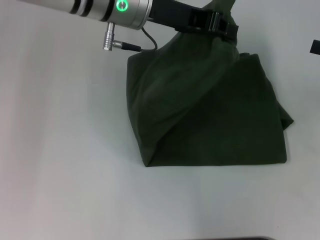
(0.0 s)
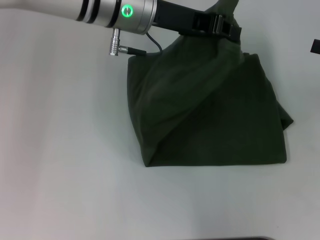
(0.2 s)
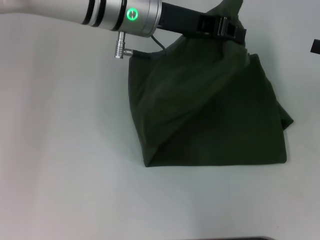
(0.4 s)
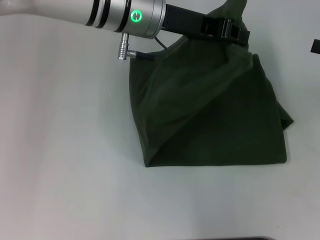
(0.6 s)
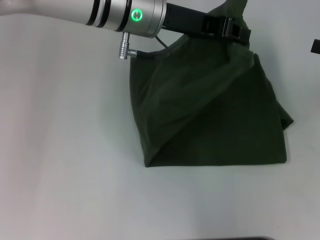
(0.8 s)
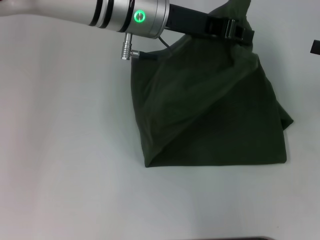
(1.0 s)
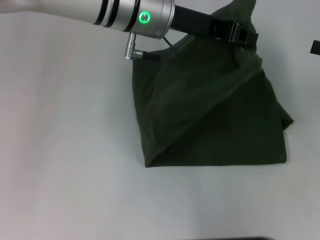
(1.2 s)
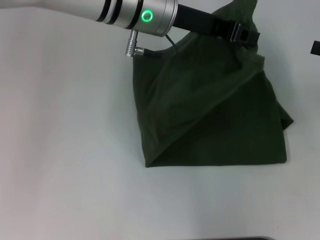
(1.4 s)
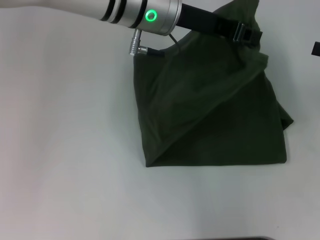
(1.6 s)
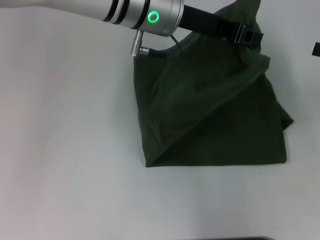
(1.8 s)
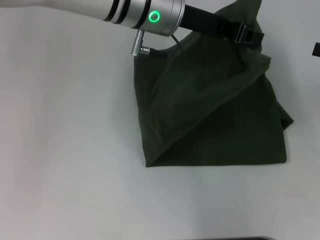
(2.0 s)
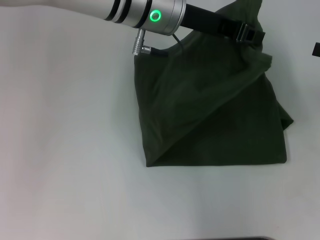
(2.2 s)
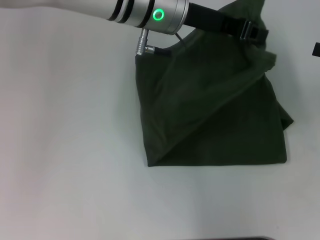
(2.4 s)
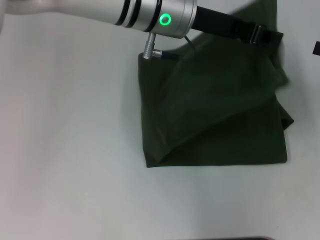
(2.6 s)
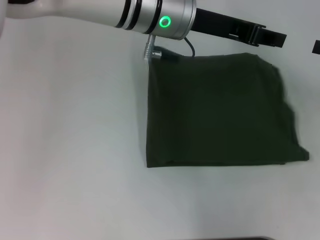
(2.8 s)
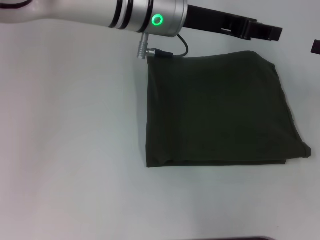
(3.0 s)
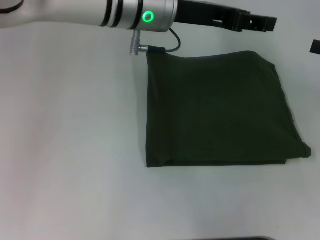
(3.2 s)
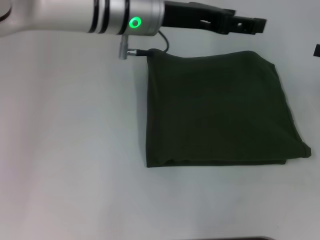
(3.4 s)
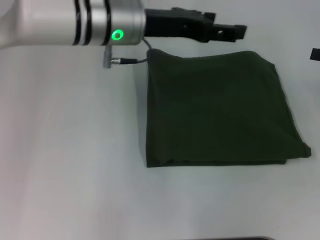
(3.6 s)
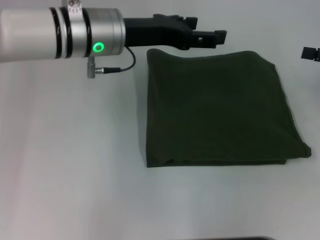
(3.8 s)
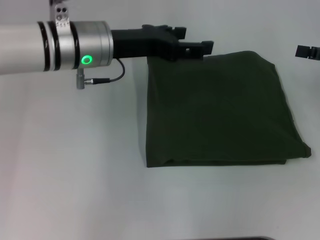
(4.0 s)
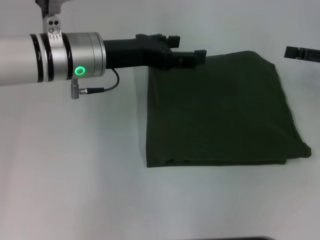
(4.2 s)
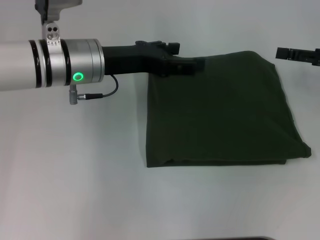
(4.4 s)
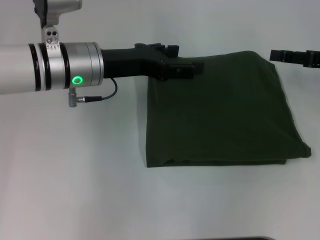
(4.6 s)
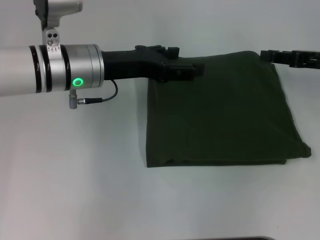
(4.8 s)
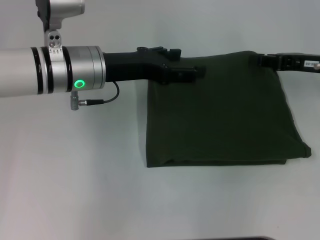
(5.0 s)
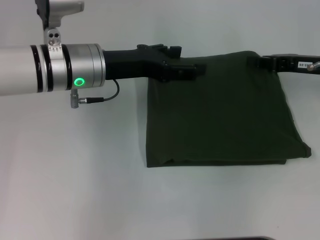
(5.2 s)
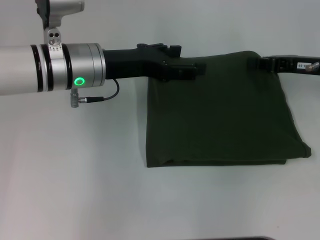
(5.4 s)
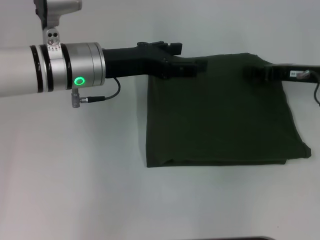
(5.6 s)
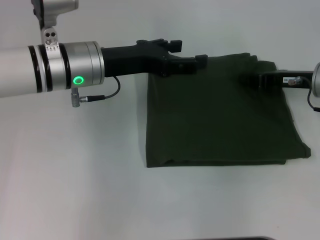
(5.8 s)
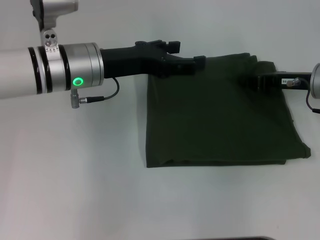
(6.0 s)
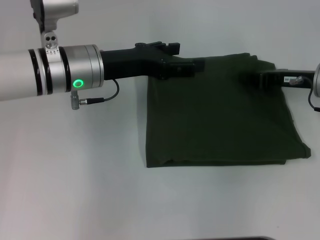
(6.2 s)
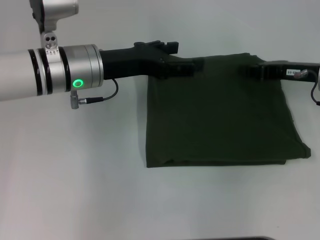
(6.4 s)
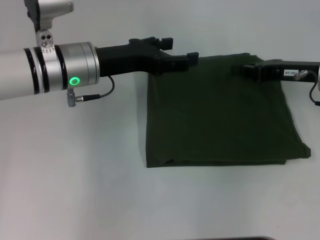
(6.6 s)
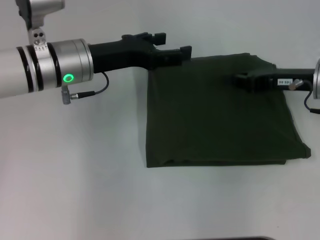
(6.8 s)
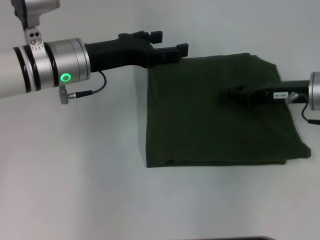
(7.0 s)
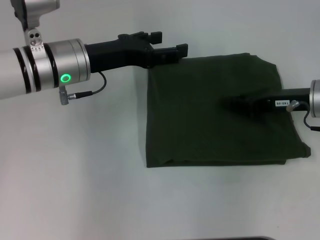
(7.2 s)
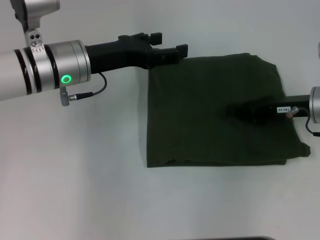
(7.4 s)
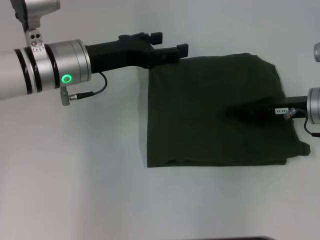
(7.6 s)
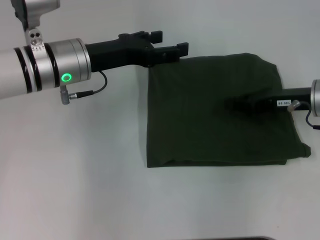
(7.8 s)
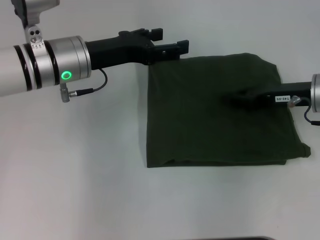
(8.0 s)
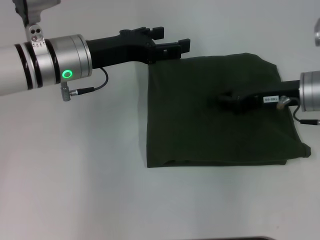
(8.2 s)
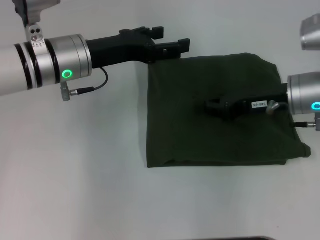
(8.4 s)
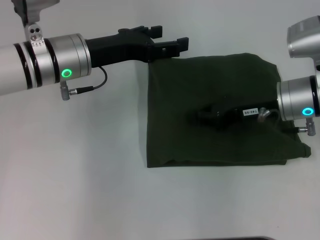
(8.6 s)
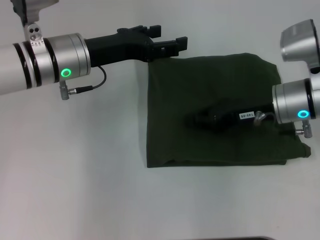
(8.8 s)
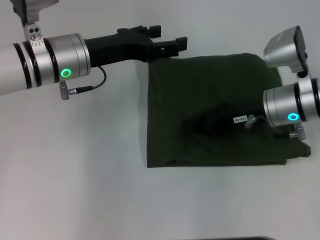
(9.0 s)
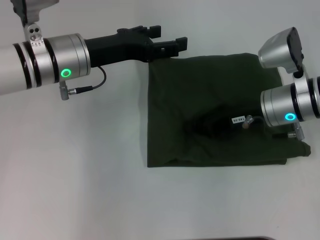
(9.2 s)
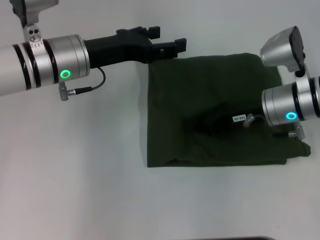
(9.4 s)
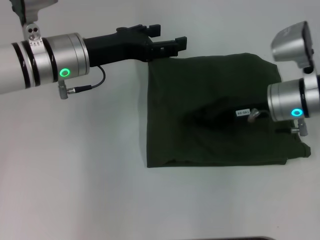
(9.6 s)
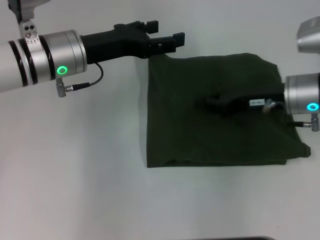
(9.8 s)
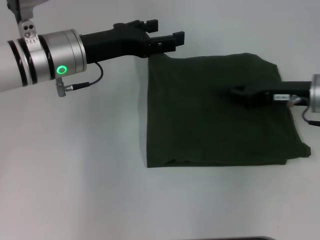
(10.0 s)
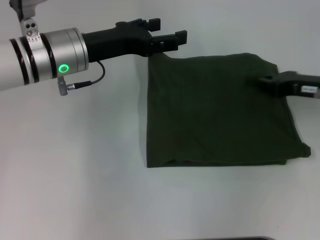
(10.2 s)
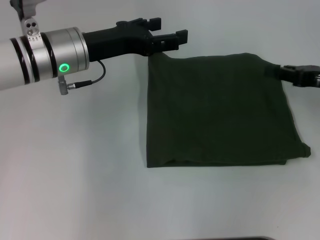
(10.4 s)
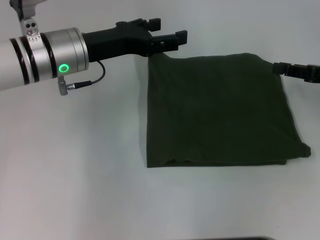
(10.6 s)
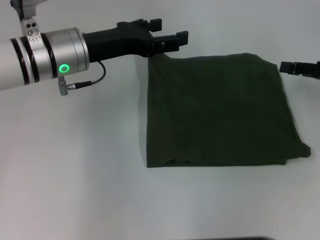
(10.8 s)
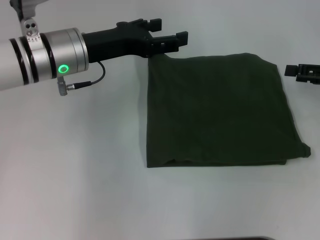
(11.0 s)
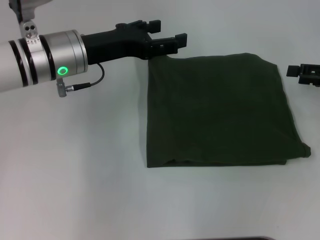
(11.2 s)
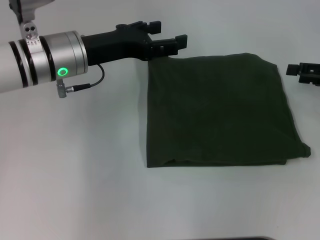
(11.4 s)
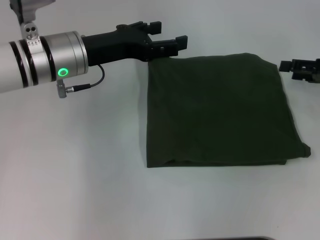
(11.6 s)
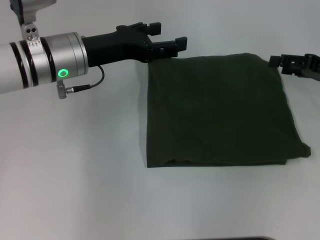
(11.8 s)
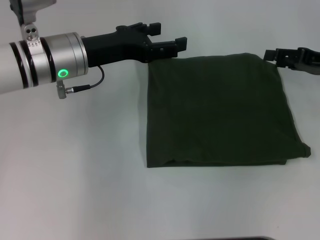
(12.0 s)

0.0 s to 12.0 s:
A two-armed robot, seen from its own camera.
Step, 0.0 to 2.8 s: Fold the clothes with your left hand.
0.0 to 3.0 s: The grippers move only a little.
3.0 to 4.4 s: The left gripper heads to the left and downward, covering some 10 cm, and opens up; the right gripper ends up approximately 5 cm from where it was.
4.4 to 6.0 s: The right gripper is displaced to the left and downward by roughly 10 cm, and closes up.
6.0 to 7.6 s: There are only small adjustments of the grippers.
7.6 to 9.0 s: The right gripper shifts approximately 5 cm to the left.
9.0 to 10.4 s: The right gripper is displaced to the right by about 15 cm.
10.4 to 12.0 s: The right gripper opens.

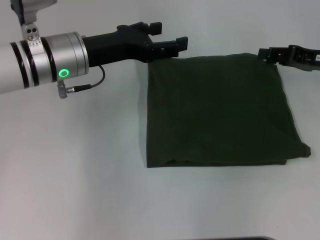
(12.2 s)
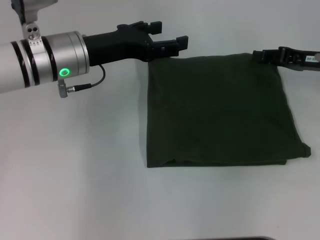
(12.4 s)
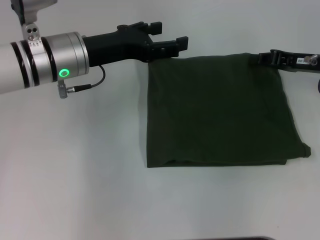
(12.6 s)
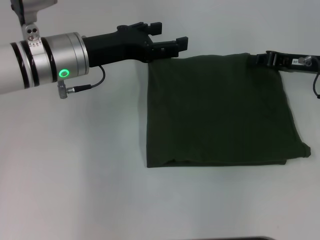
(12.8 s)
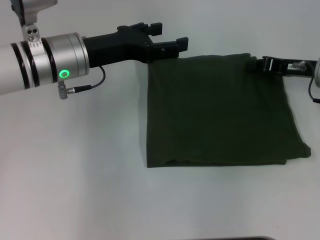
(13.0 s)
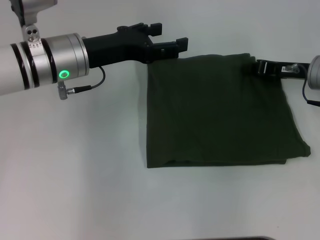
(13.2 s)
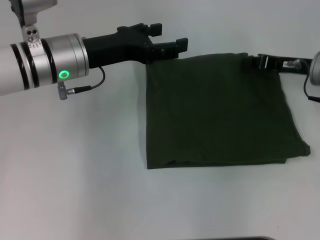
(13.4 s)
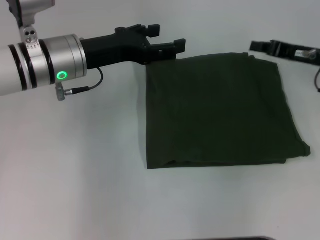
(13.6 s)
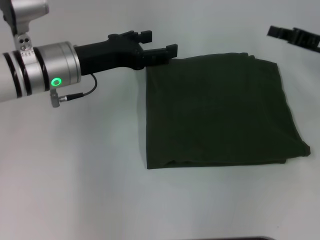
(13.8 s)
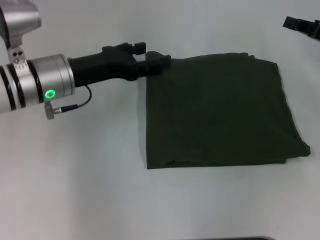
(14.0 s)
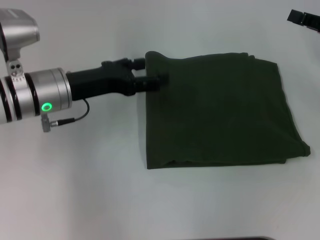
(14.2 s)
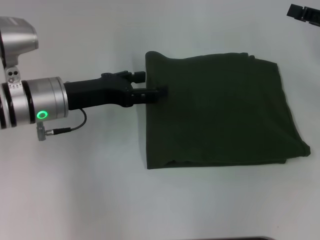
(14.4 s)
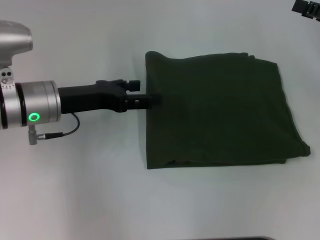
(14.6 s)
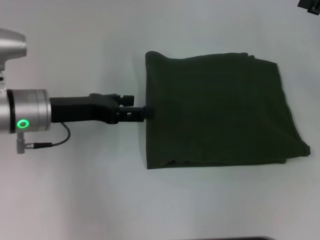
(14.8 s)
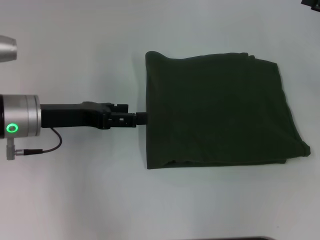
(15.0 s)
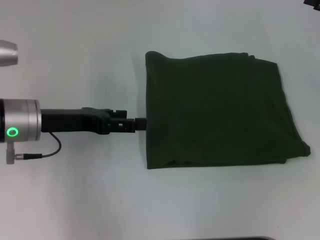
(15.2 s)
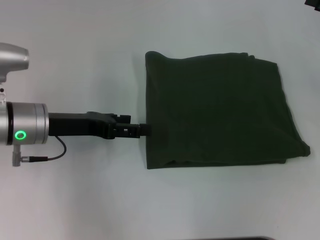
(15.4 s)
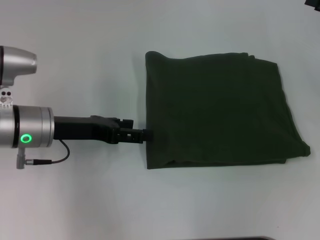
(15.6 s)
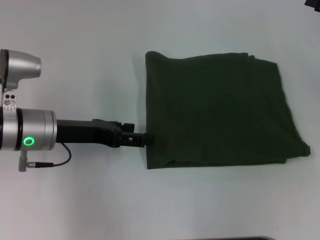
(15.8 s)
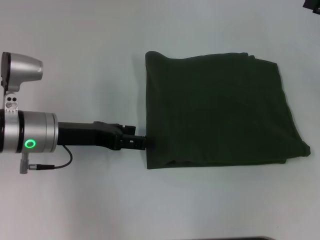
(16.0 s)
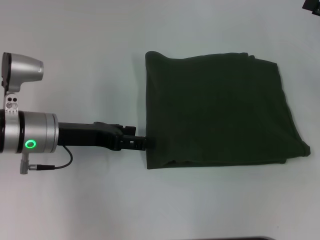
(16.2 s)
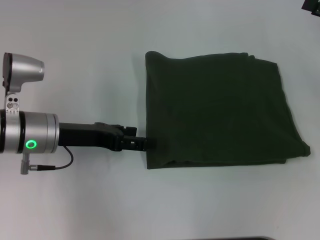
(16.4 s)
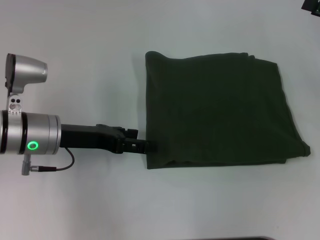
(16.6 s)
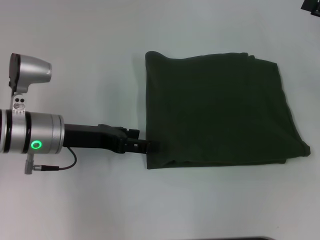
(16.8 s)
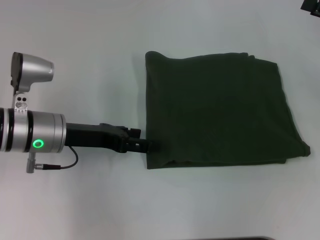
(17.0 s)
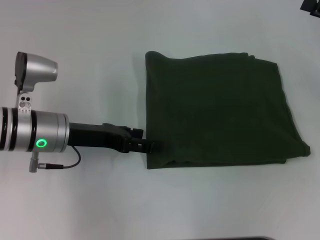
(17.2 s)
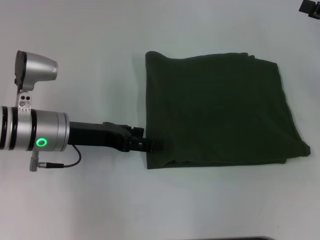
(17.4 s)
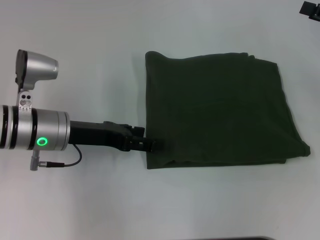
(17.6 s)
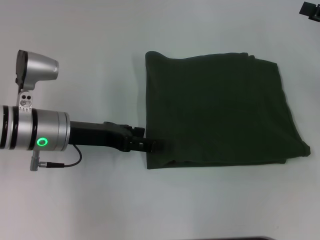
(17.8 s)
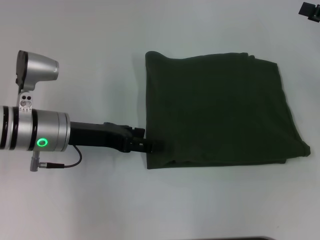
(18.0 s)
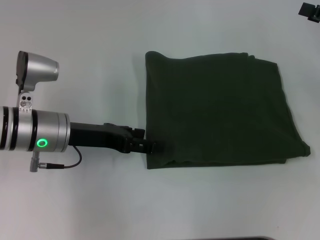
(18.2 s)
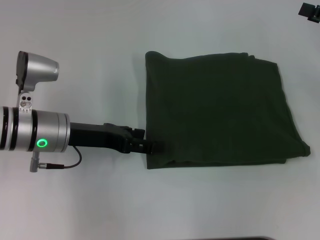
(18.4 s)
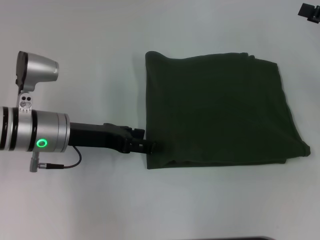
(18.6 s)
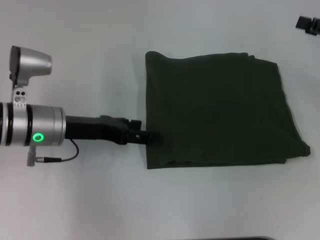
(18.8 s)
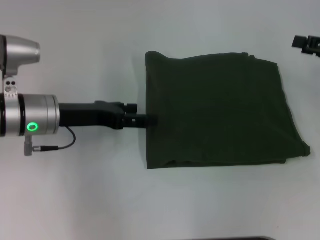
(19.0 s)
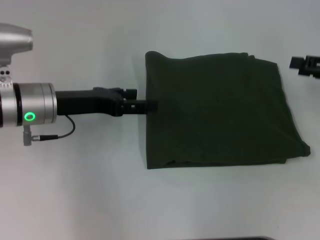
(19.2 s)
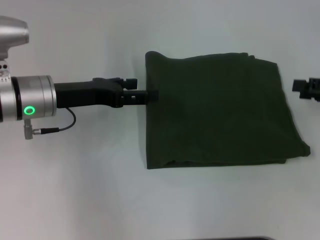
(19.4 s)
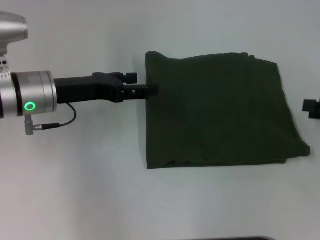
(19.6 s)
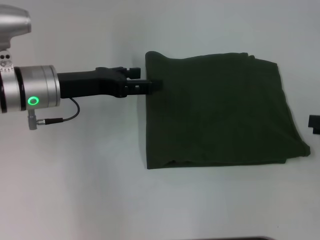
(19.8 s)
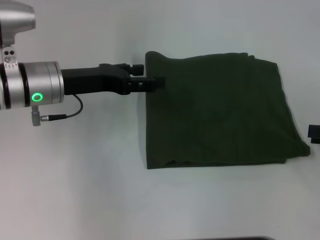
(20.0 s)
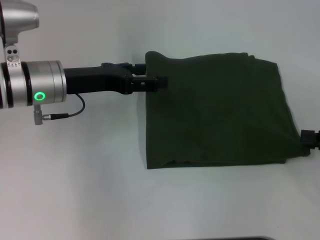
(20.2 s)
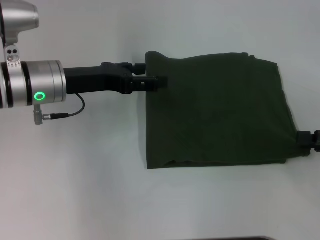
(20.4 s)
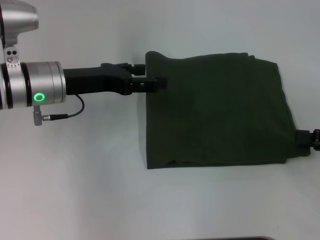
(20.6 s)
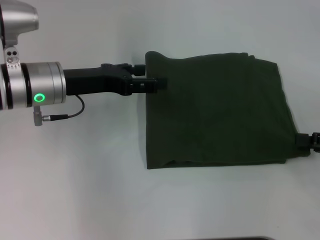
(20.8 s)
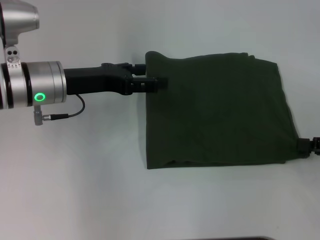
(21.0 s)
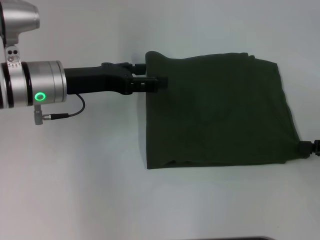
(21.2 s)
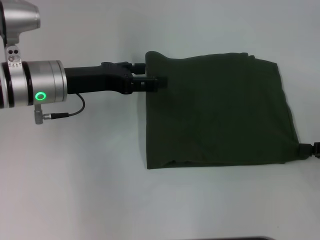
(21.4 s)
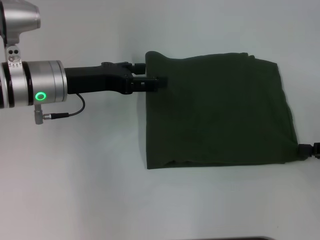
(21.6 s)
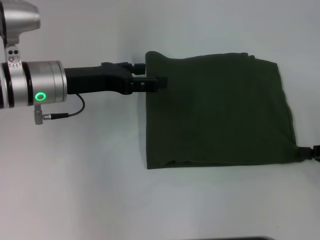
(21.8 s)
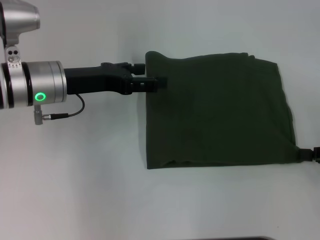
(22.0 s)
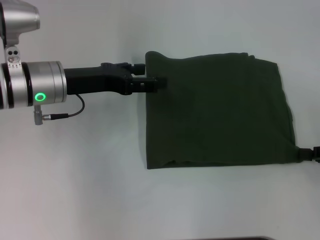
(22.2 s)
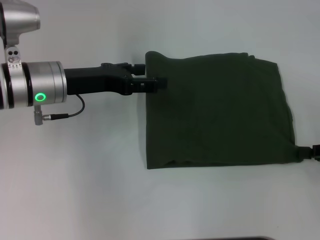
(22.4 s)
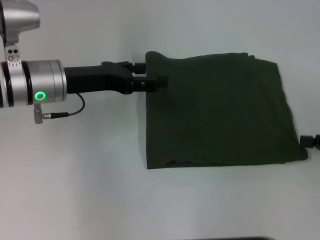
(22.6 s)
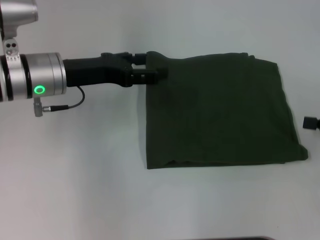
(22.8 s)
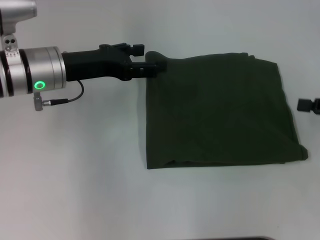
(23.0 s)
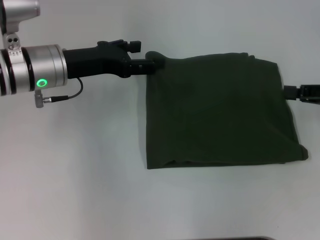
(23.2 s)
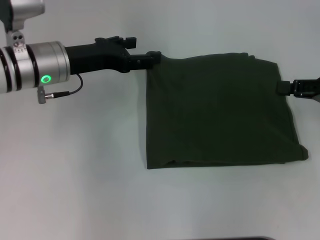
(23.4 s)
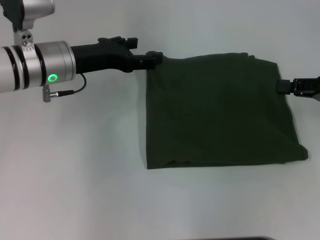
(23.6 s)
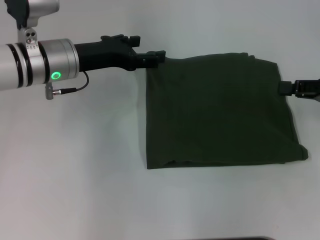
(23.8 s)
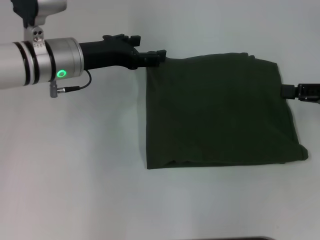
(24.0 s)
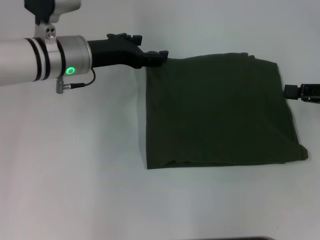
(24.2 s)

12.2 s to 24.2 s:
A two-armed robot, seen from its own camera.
12.2 to 13.8 s: The right gripper closes up.
13.8 to 15.2 s: The left gripper travels to the left and backward by some 5 cm. Meanwhile the right gripper moves to the right, roughly 5 cm, and opens its fingers.
15.2 to 16.6 s: The grippers stay close to where they were, moving slightly.
16.6 to 18.2 s: Both grippers stay about where they are.
18.2 to 19.8 s: The right gripper heads backward, covering roughly 10 cm. The left gripper shifts by about 5 cm.
19.8 to 21.2 s: The right gripper closes.
21.2 to 22.6 s: Both grippers stay put.
22.6 to 24.2 s: The right gripper travels forward by some 5 cm. The left gripper shifts by some 5 cm.
